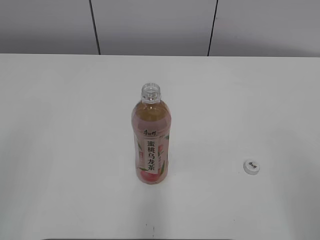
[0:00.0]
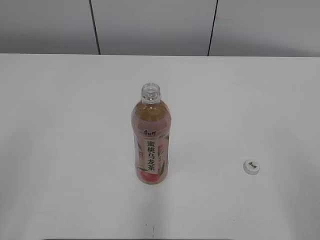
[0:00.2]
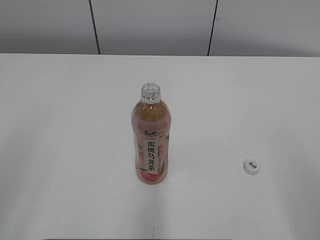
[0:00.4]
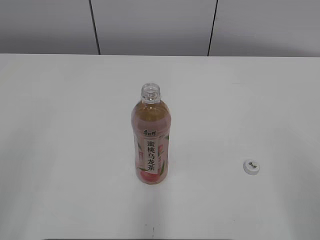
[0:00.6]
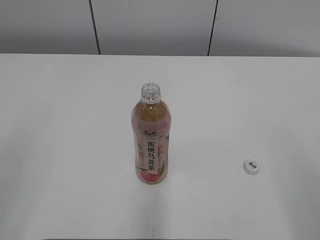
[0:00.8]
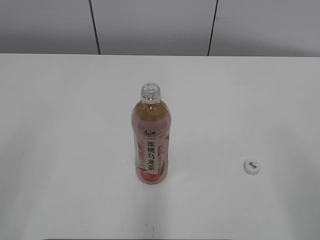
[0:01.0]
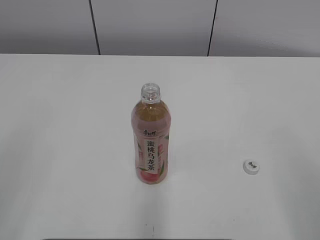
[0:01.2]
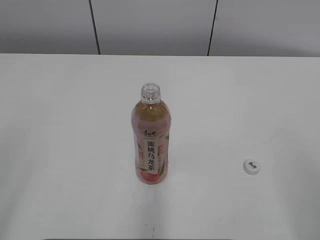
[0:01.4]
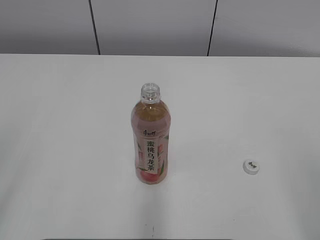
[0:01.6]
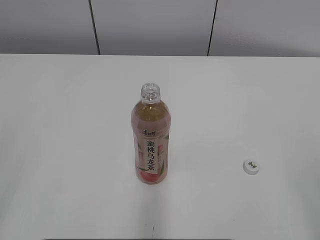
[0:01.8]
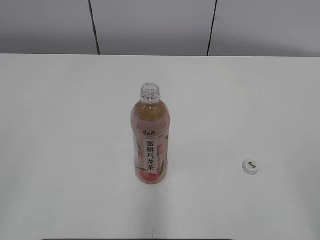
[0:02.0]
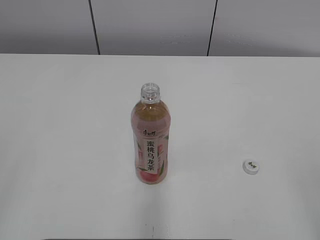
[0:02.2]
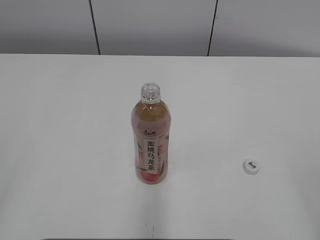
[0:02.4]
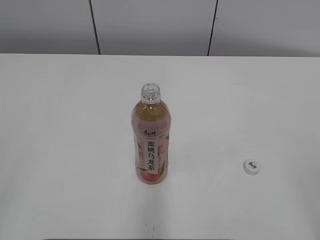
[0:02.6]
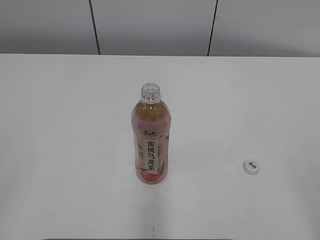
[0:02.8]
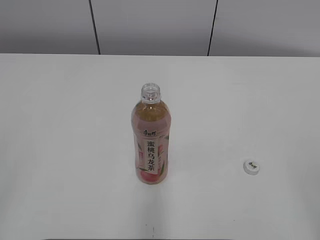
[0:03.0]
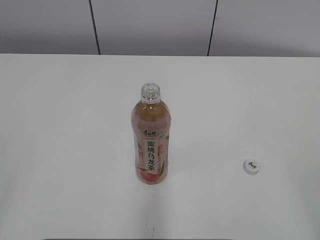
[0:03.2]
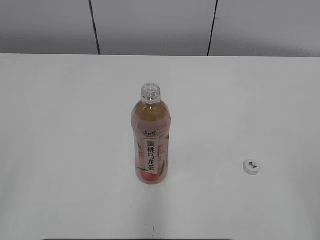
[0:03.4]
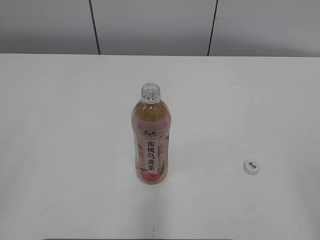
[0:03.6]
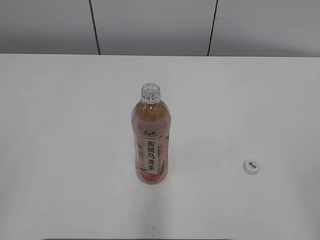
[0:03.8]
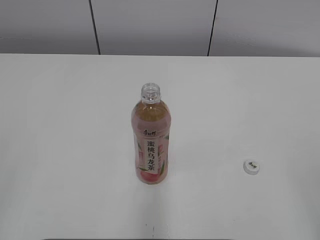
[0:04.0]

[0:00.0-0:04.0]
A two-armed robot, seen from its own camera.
0:02.6 to 0:04.0: Both grippers stay put.
